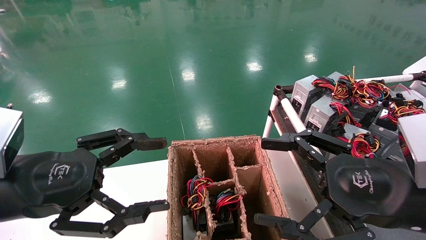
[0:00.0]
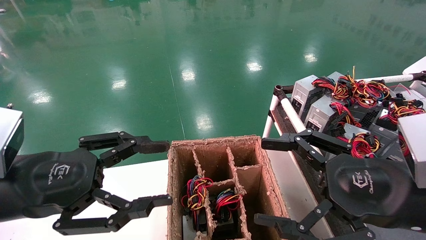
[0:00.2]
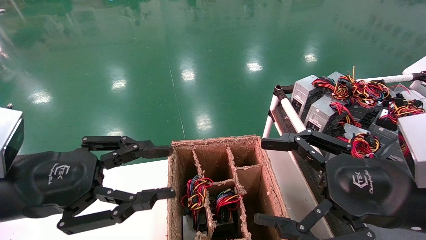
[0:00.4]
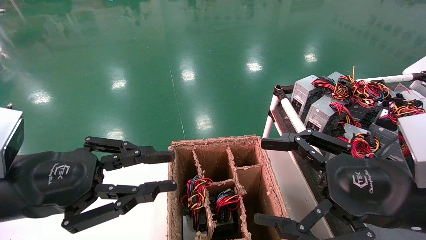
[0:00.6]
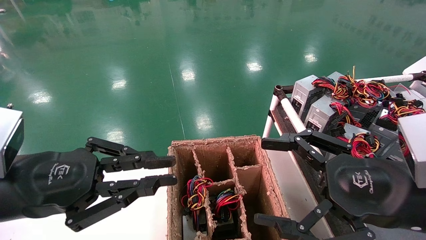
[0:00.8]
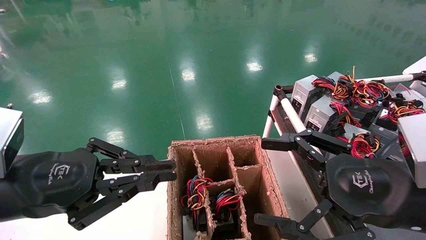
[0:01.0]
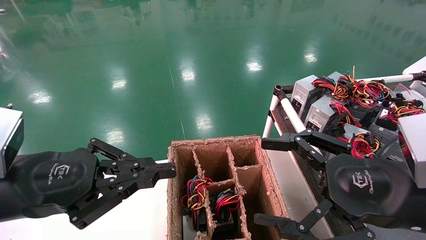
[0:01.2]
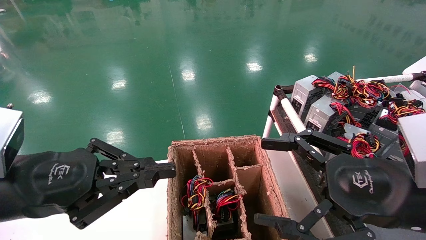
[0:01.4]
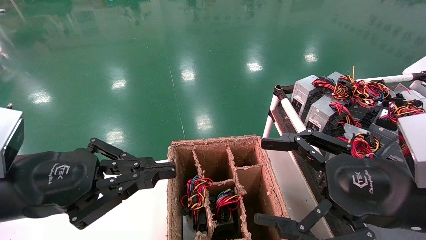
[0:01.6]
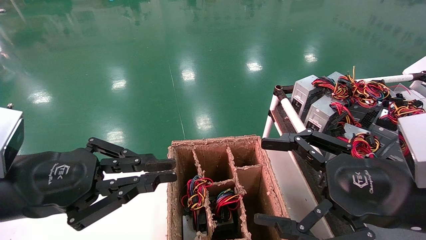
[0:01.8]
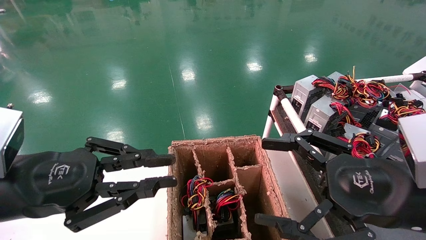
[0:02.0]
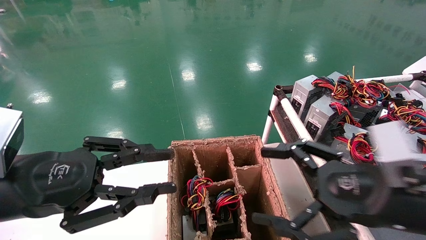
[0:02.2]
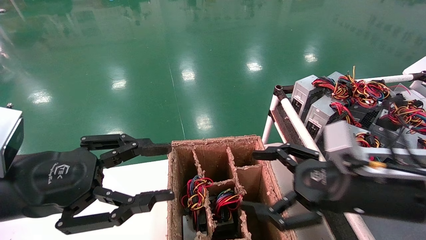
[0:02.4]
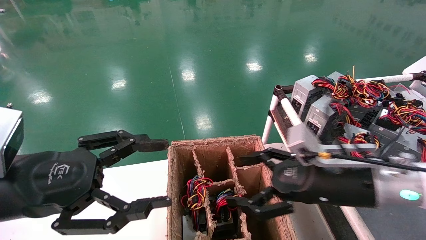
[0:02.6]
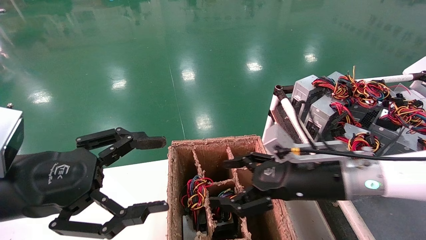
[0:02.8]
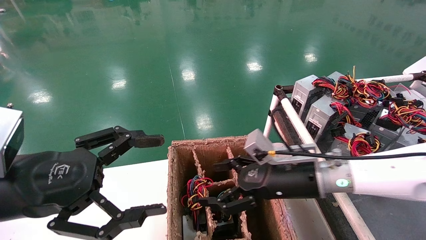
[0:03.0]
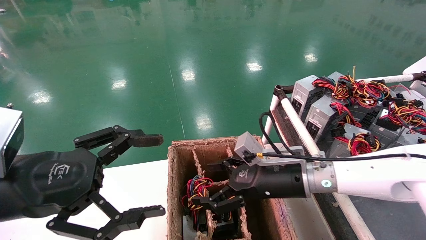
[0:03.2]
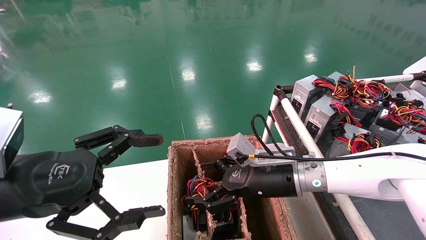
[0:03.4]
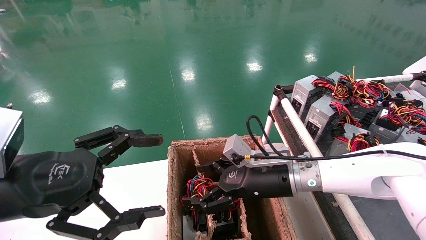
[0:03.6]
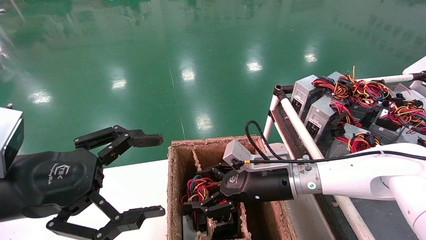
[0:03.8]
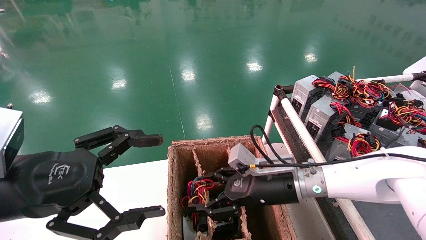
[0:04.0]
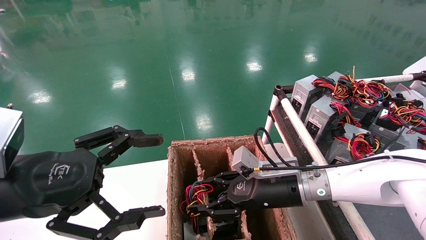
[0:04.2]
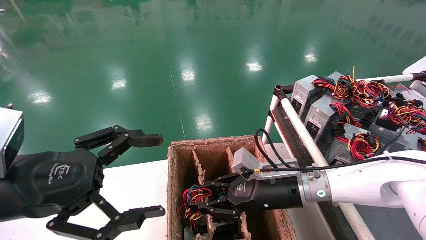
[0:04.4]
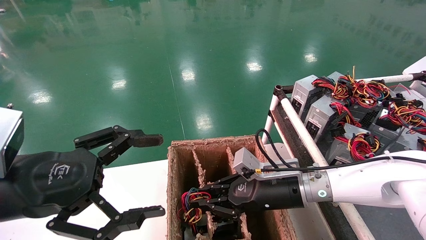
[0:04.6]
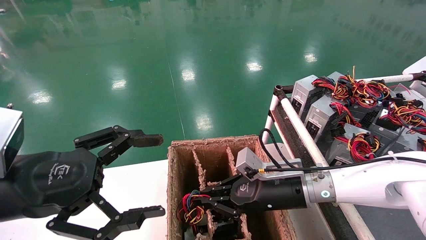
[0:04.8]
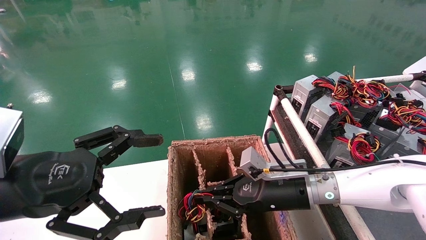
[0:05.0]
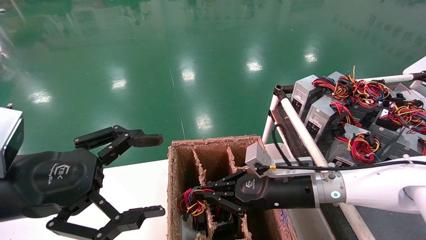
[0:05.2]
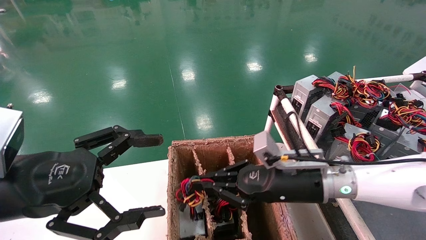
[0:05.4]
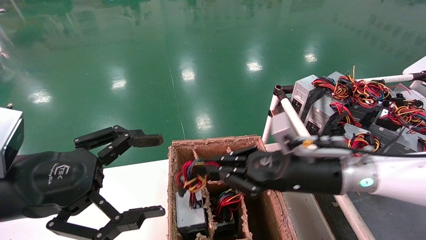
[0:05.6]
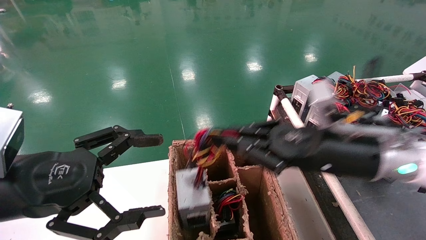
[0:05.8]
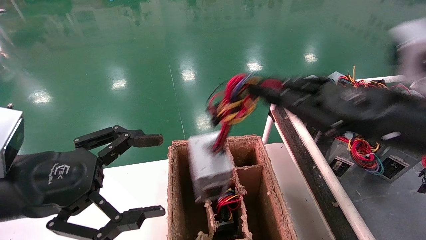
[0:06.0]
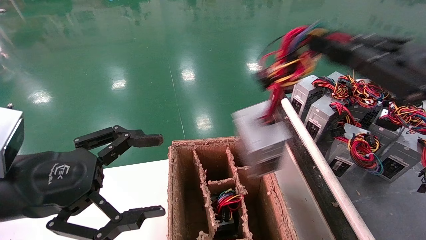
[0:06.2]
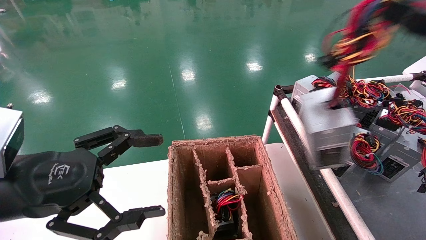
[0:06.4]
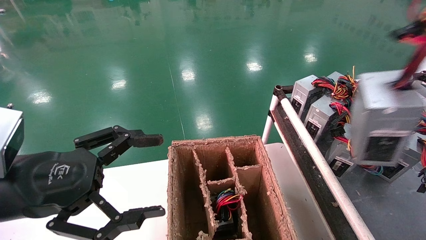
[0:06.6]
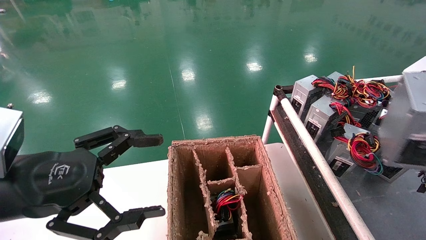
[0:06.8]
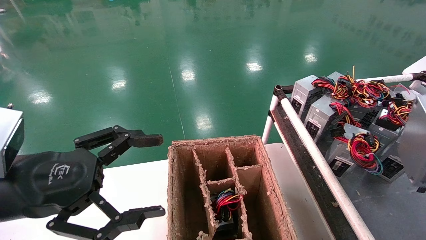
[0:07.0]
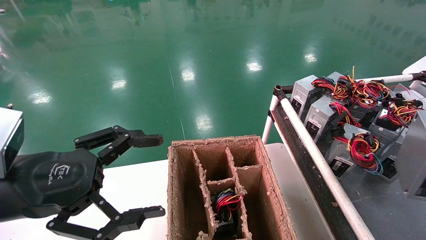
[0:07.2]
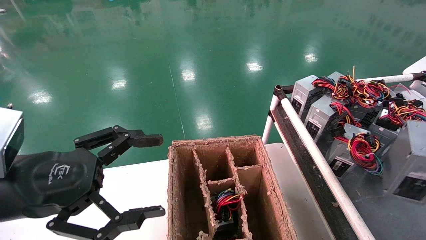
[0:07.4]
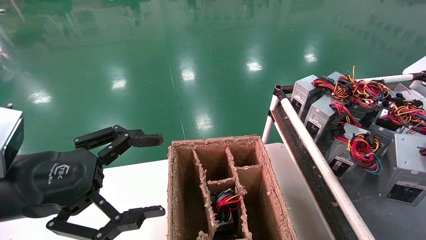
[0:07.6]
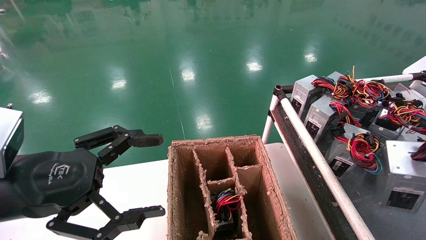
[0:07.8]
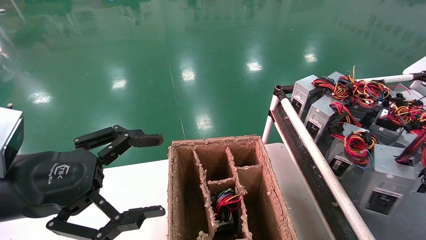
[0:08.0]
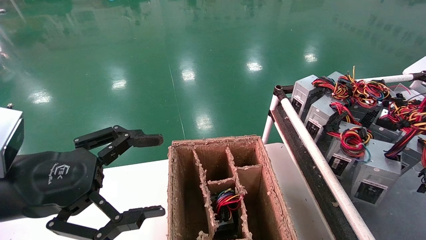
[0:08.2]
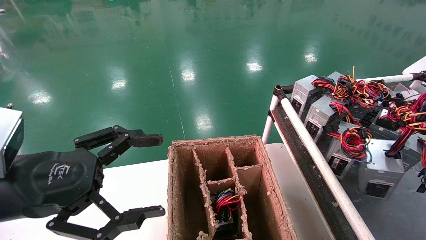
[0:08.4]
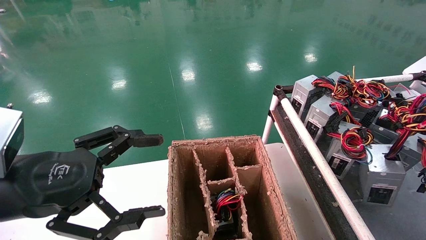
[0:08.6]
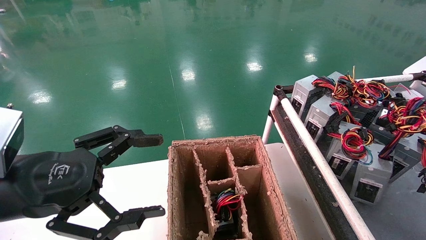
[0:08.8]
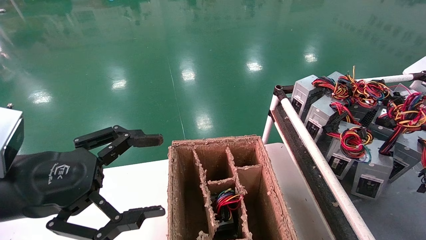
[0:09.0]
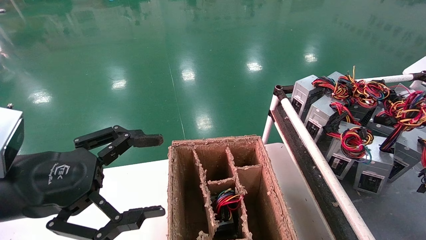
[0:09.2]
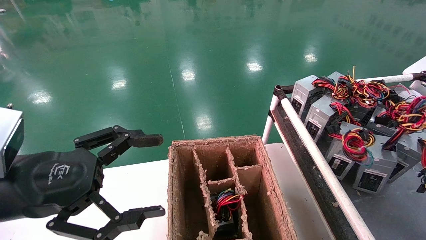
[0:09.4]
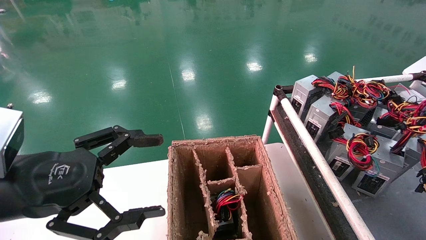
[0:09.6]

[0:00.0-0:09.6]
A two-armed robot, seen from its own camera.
Step, 0:01.2 to 0:04.8: Grab and lift the power supply from the large box.
0:00.0 to 0:01.6: The left gripper closes.
0:01.6 to 0:03.2: The right gripper heads forward, to the left and downward, covering roughly 20 cm, while the left gripper opens its fingers.
0:03.2 to 0:04.8: The right gripper closes its fingers.
0:04.8 to 0:06.4: The right gripper travels to the right, upward and backward by some 35 cm.
0:06.4 to 0:08.0: The right gripper shifts some 15 cm to the right and downward.
0:08.0 to 0:09.6: The right gripper goes approximately 5 cm forward.

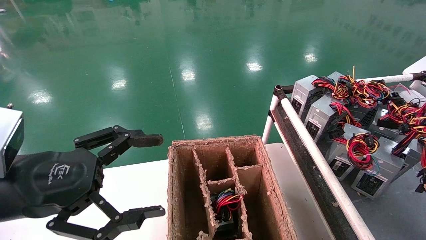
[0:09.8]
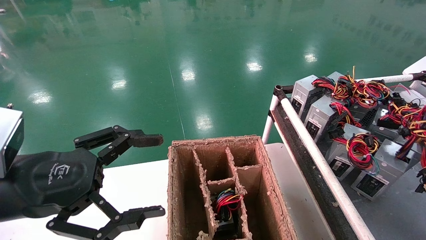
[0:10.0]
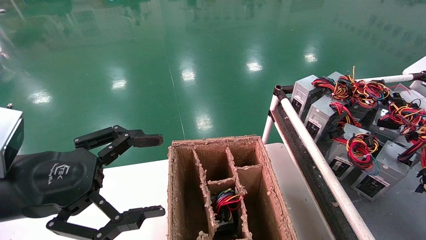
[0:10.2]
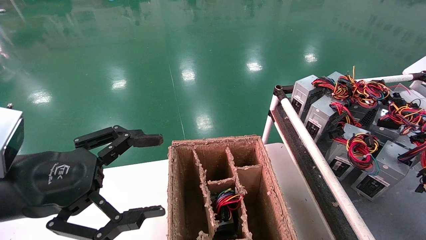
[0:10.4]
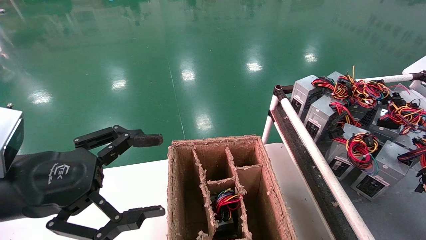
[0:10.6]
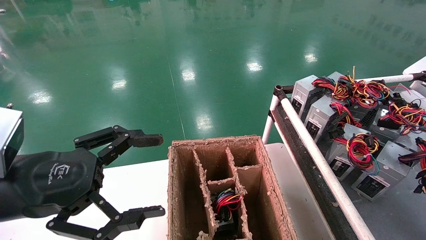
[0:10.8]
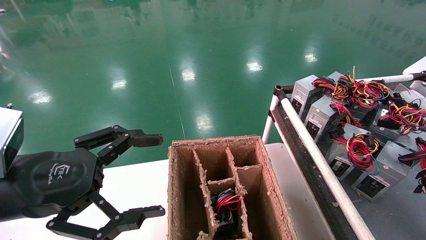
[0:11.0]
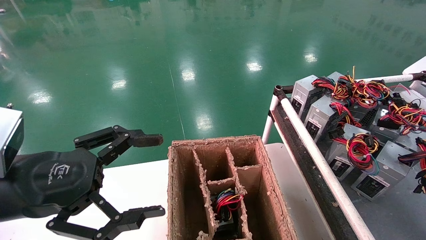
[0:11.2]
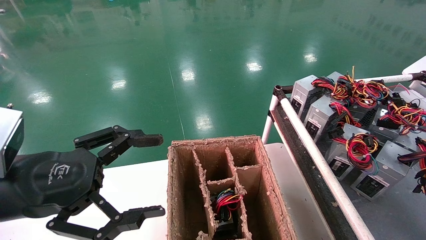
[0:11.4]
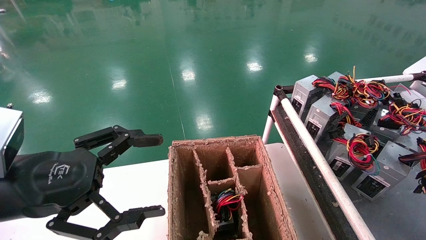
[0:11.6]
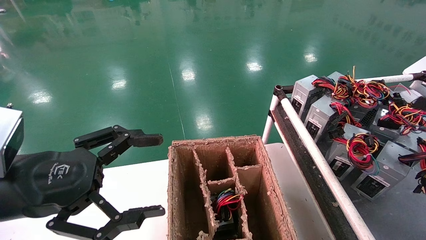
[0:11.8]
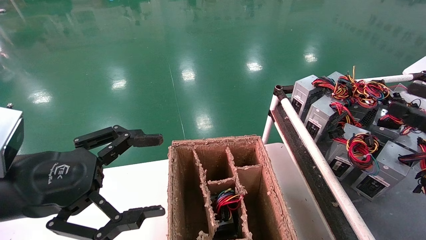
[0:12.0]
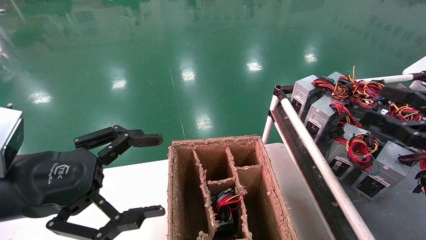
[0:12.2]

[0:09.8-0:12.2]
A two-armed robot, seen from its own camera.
0:09.8 to 0:11.0: The right gripper opens.
0:11.0 to 0:12.2: The right gripper moves to the left, approximately 10 cm.
